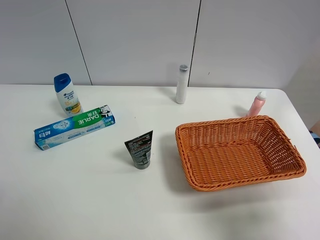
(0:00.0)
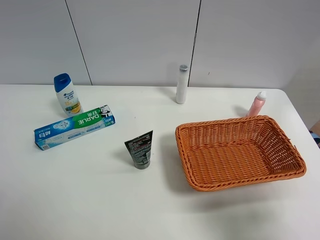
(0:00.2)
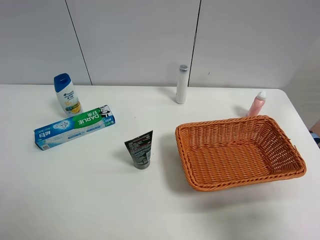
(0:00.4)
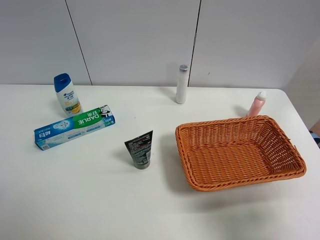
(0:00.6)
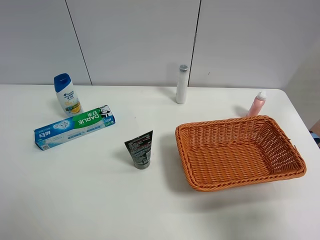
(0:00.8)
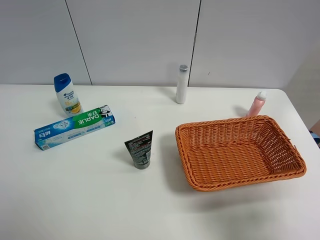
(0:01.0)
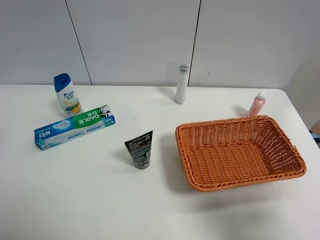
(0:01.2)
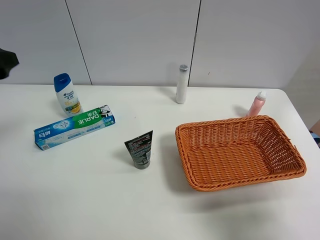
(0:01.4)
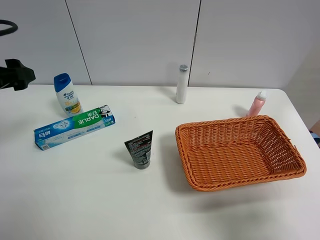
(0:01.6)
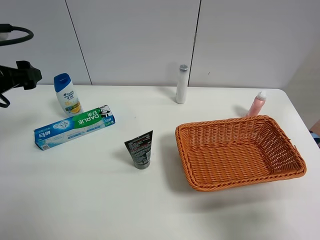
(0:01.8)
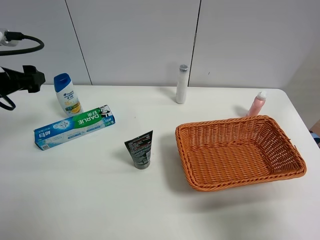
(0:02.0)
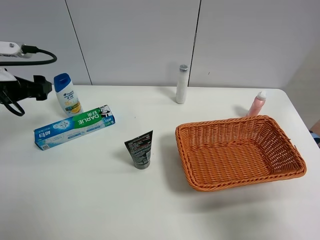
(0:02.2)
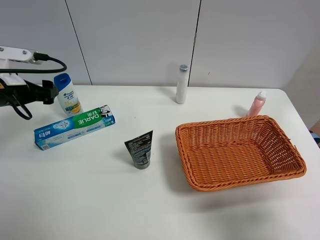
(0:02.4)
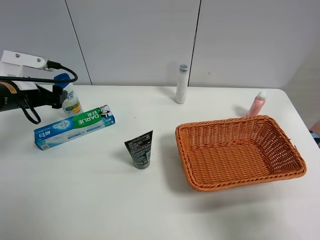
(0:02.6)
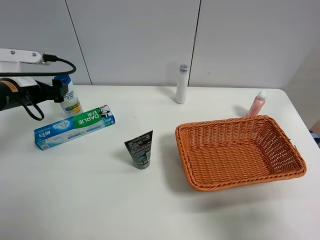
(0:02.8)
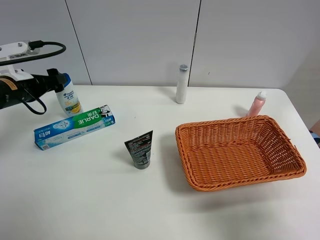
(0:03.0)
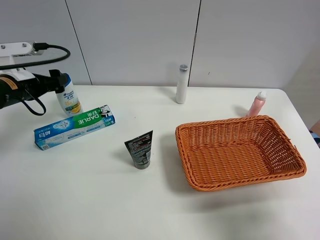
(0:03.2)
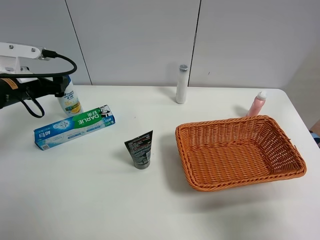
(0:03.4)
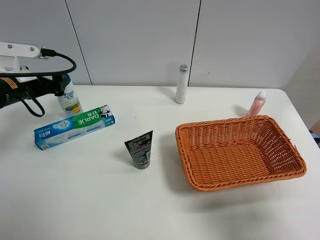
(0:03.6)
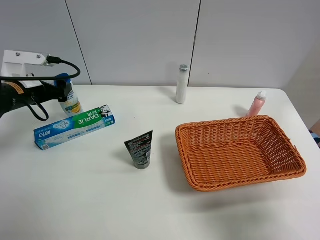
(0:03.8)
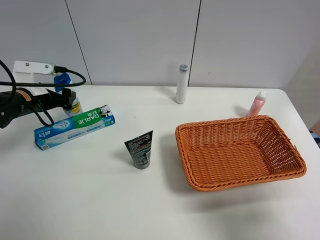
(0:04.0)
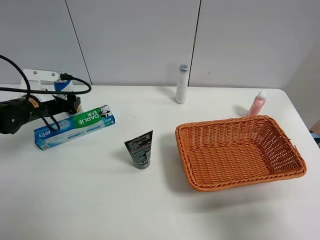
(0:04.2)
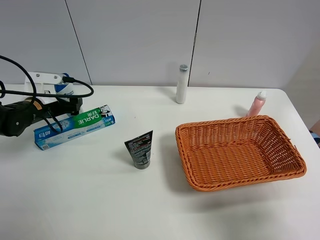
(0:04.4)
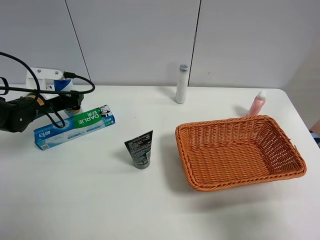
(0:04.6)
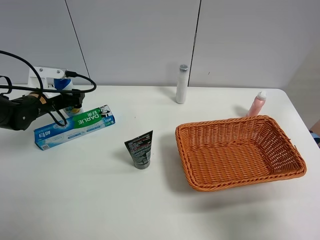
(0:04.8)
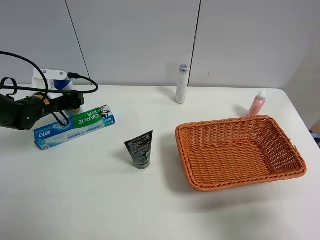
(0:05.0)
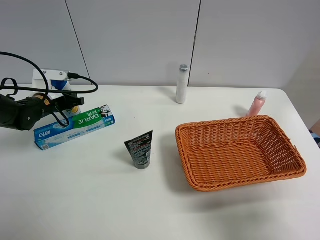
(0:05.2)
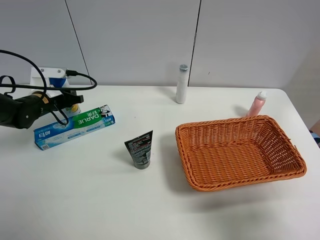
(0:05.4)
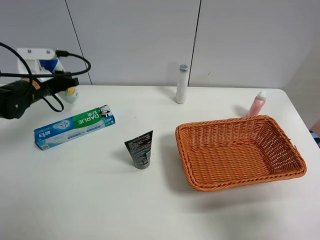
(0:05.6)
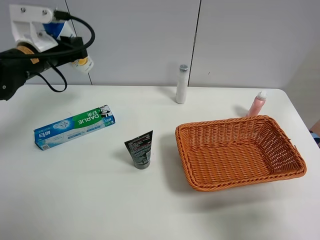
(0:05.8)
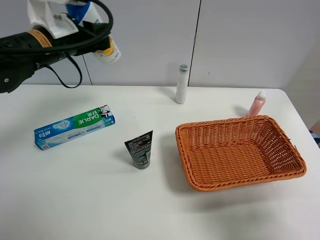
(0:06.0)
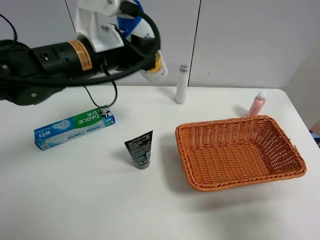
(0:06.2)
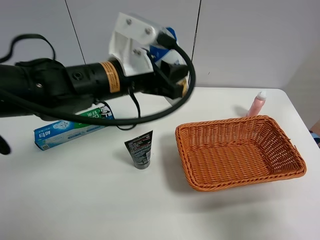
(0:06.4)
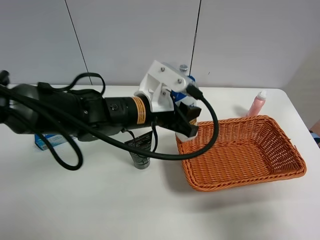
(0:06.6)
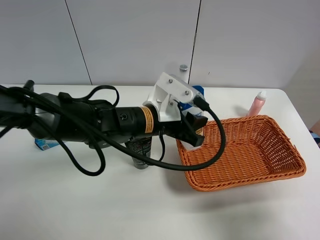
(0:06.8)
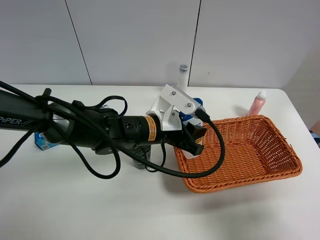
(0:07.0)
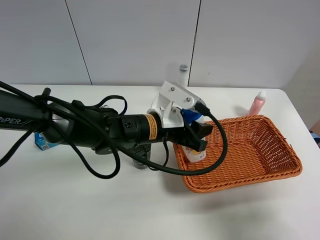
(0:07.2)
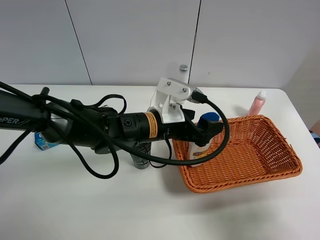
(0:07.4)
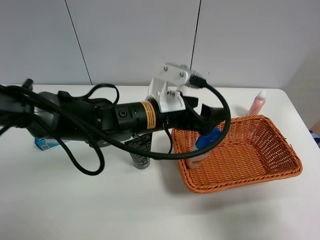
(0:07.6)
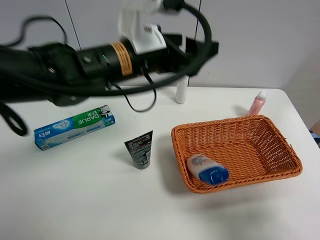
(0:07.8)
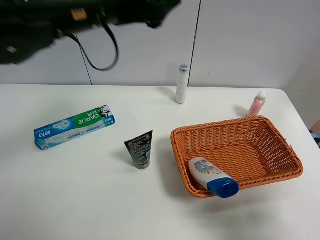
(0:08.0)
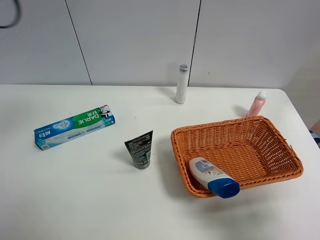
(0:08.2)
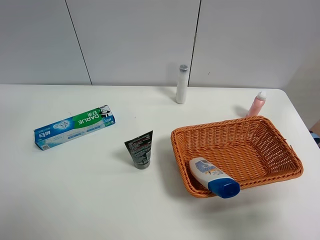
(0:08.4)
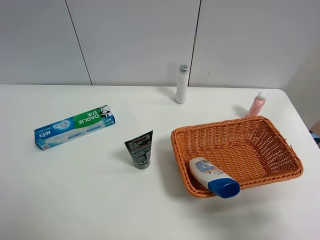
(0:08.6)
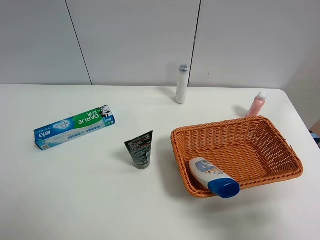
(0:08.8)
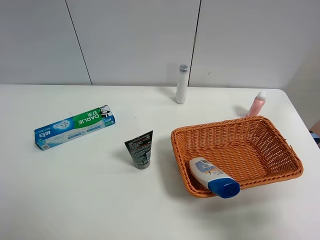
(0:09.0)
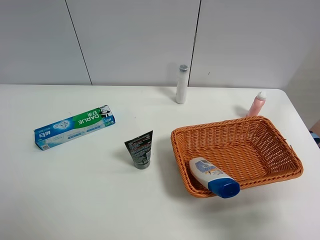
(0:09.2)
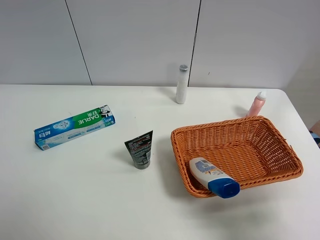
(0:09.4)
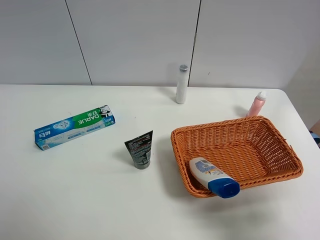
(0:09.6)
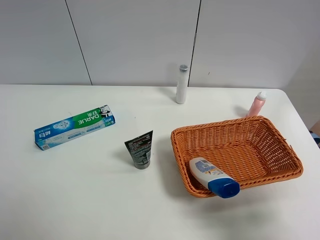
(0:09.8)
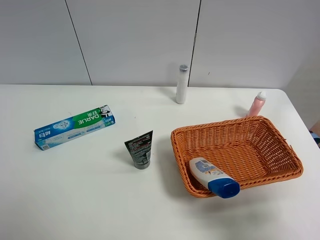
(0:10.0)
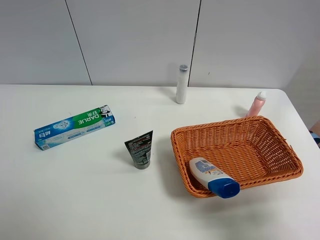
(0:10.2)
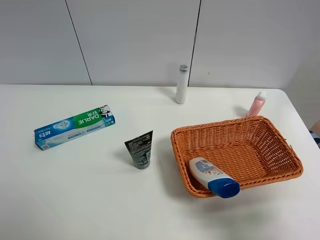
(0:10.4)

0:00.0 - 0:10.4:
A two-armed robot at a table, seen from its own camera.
Task of the whole recording: Place the object closest to the toothpaste in the basket.
Step, 0:00.0 - 0:05.2: Grasp the shampoo with left gripper.
Step, 0:05.4 - 0:07.6: Place the shampoo in the basket with left gripper.
0:00.0 - 0:01.4: The left gripper heads forward, covering some 20 cm.
0:01.4 - 0:03.0: The left gripper goes some 15 cm downward and forward.
0:03.0 - 0:04.4: The left gripper heads downward, covering approximately 10 cm.
0:04.4 - 0:06.0: The left gripper moves upward and to the right, about 20 cm, and closes up.
0:06.0 - 0:07.4: The left gripper moves to the right, downward and backward, roughly 20 cm, and opens.
0:07.4 - 0:09.0: The left gripper is displaced to the left, backward and upward by some 40 cm.

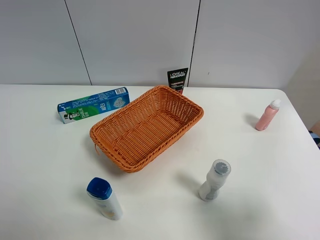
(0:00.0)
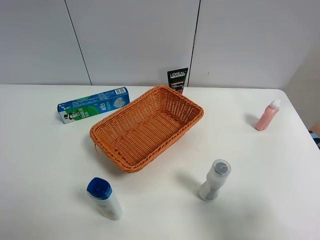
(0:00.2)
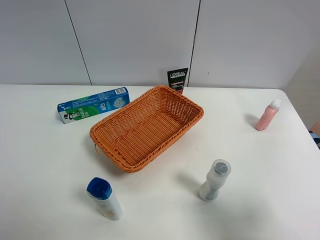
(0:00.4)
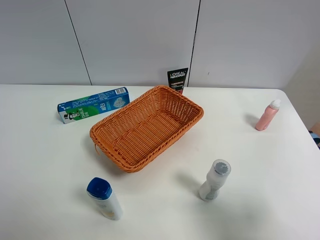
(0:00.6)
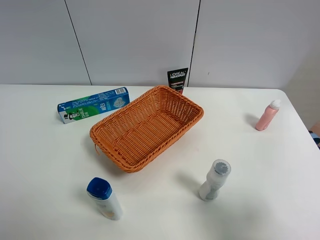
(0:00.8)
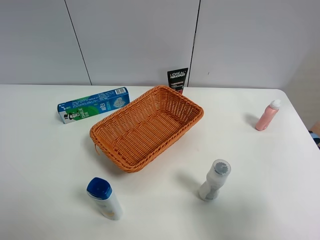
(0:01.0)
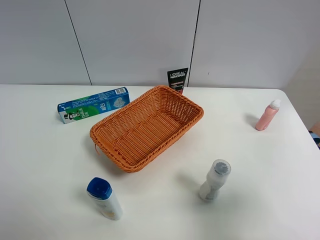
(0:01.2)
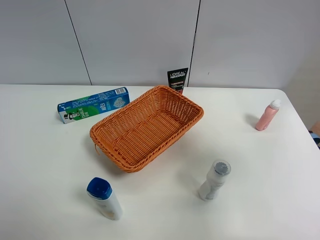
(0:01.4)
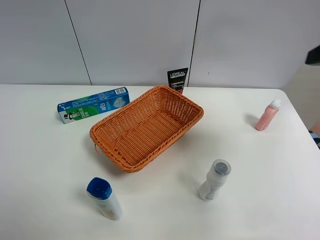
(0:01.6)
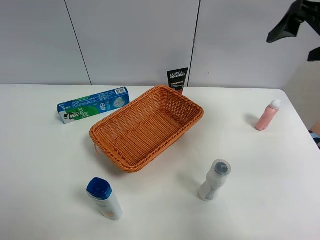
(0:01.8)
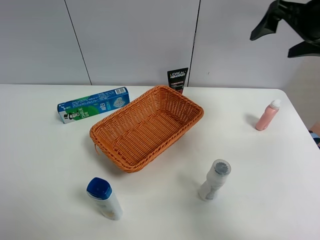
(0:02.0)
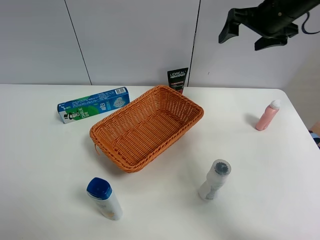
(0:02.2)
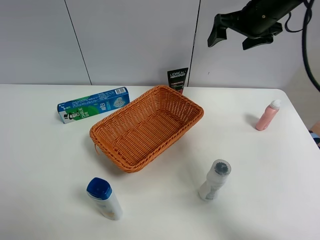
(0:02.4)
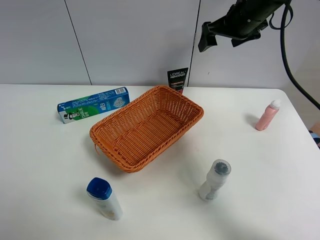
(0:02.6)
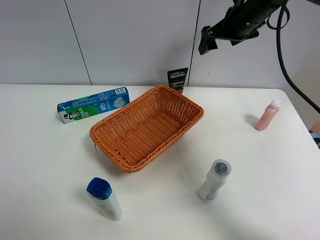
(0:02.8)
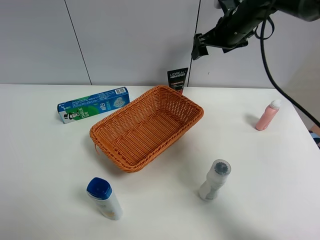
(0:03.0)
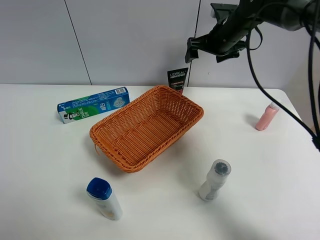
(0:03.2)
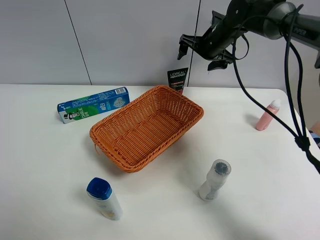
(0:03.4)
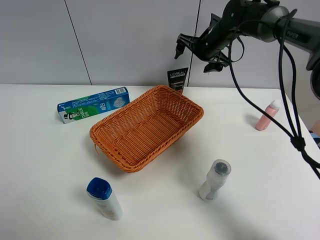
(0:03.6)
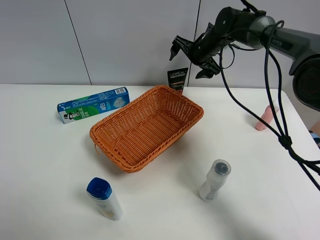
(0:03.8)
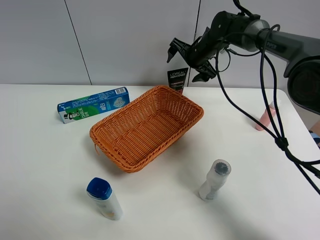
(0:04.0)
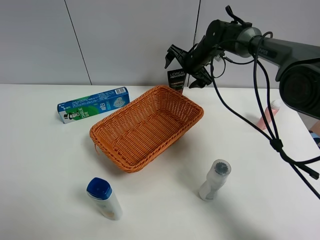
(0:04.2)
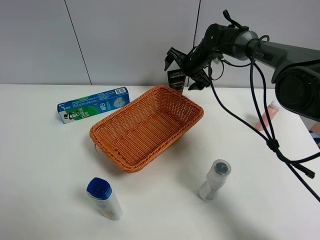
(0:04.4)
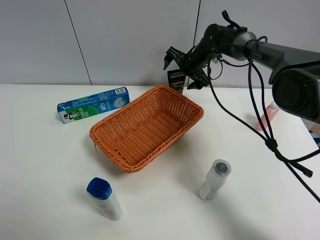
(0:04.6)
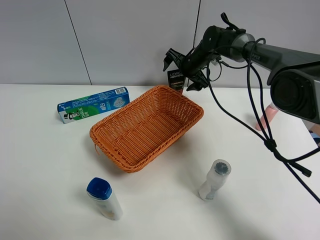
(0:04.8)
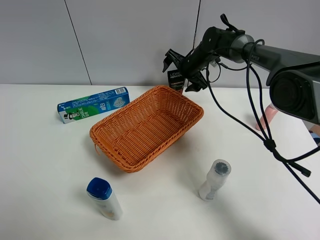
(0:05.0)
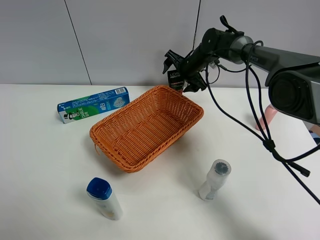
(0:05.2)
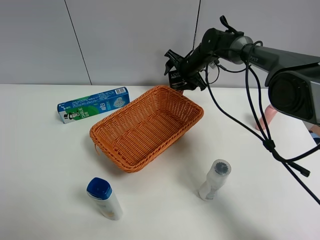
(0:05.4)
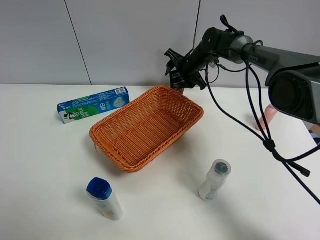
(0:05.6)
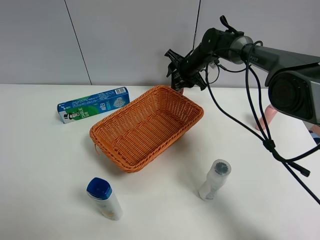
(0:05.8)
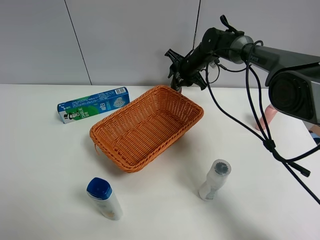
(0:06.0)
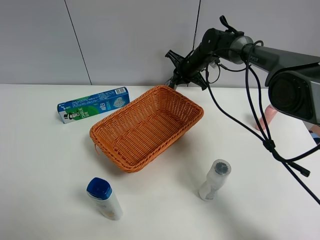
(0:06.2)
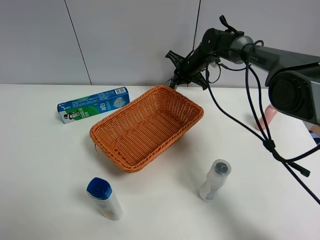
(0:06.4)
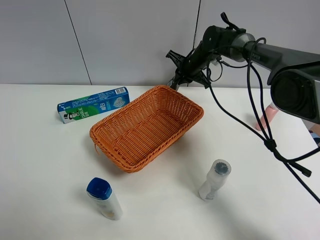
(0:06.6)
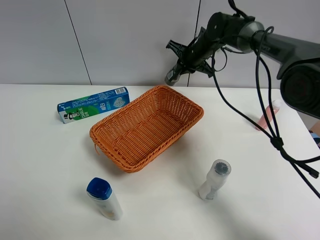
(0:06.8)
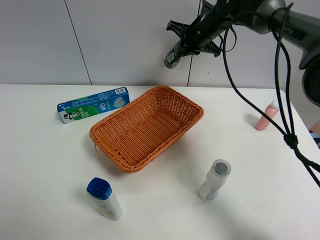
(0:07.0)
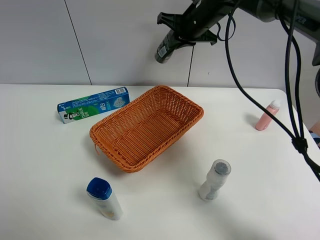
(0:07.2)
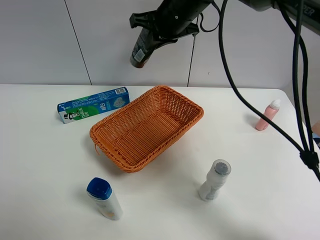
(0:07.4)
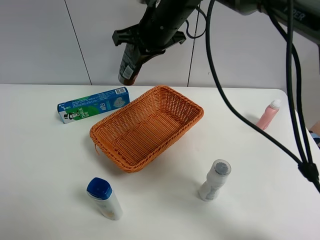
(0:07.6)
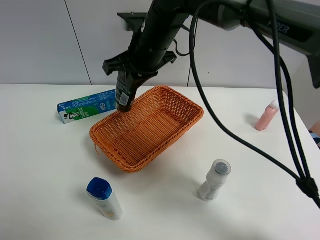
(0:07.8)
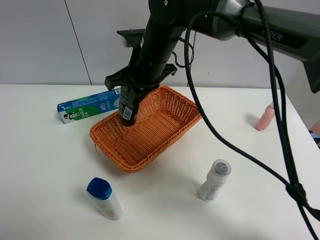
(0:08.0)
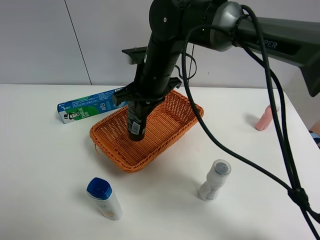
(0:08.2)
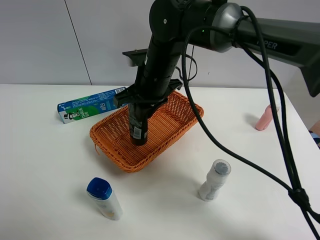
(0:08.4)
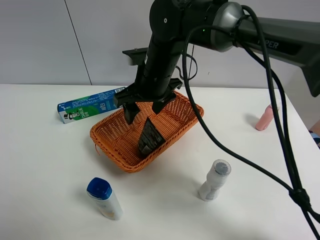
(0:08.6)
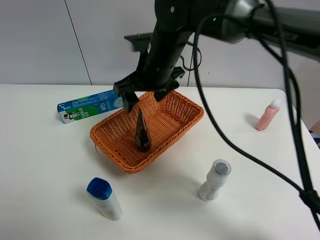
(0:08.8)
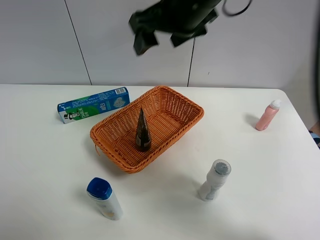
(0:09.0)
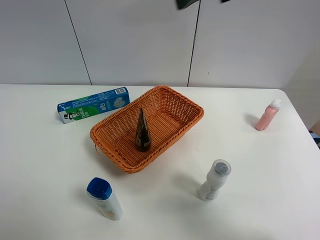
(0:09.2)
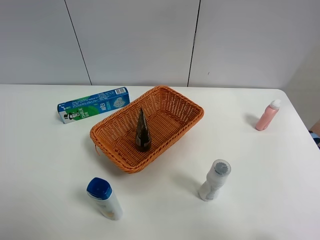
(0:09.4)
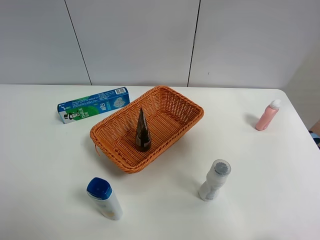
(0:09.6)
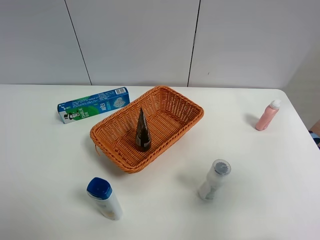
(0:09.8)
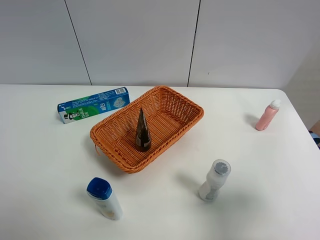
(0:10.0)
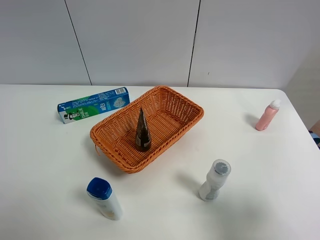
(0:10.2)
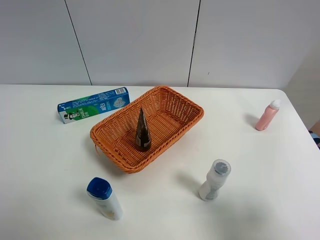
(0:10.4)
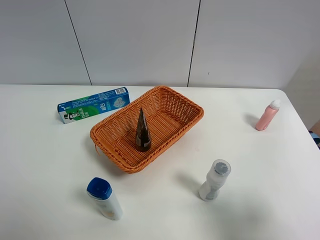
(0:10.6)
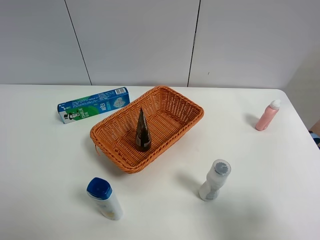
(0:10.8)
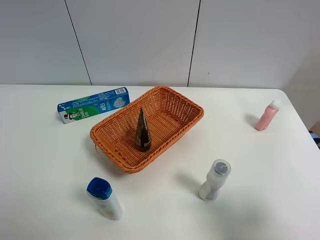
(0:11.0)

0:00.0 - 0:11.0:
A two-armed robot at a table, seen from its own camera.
Task of the whole recording: Place the object closest to the toothpaste in the basket.
Step, 0:00.0 - 0:06.0: Grasp the soft facial cleanser with right gripper.
Step, 0:06.2 - 0:08.8: Place the soft facial cleanser in the basket with right gripper.
0:00.0 - 0:01.6: The right gripper moves forward and upward, roughly 25 cm.
0:01.6 - 0:03.2: The right gripper is displaced forward, to the left and downward by some 30 cm.
0:03.2 - 0:04.8: The right gripper heads downward, covering roughly 10 cm.
0:04.8 - 0:06.2: The right gripper closes its fingers.
0:06.2 - 0:07.8: The right gripper heads backward, upward and to the left, covering some 25 cm.
0:07.8 - 0:09.4: The right gripper shifts approximately 35 cm to the right, backward and upward, and opens its fingers.
0:09.4 - 0:11.0: The right gripper heads downward and backward, covering about 25 cm.
